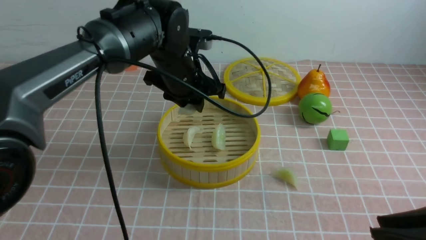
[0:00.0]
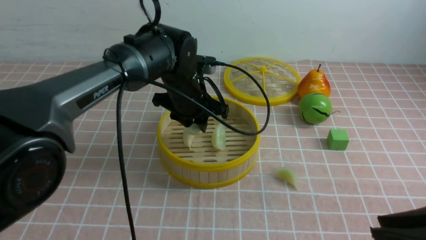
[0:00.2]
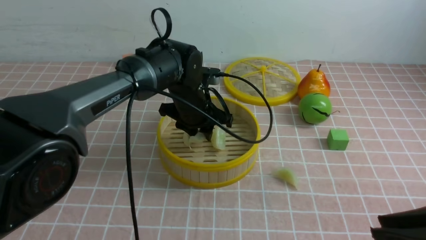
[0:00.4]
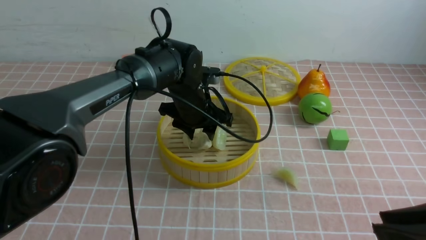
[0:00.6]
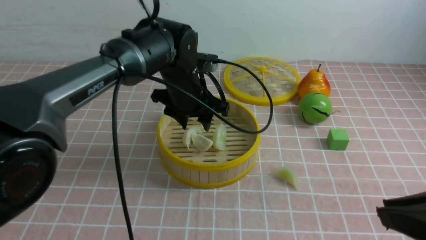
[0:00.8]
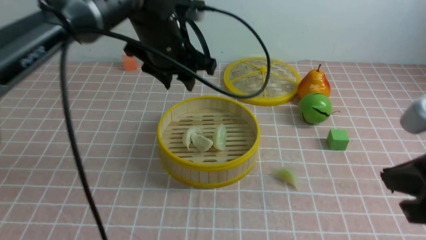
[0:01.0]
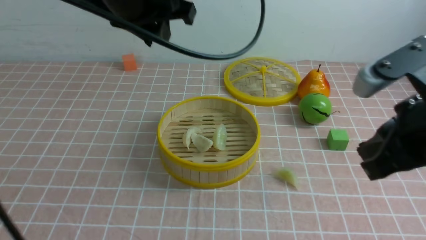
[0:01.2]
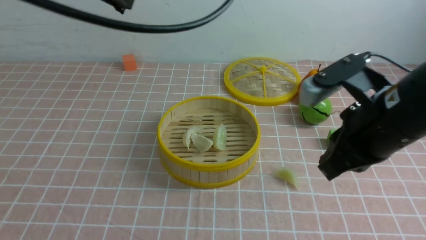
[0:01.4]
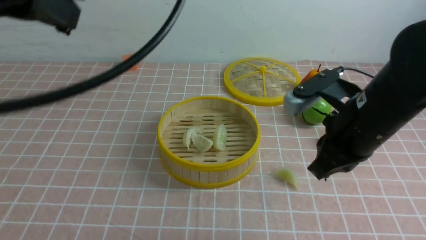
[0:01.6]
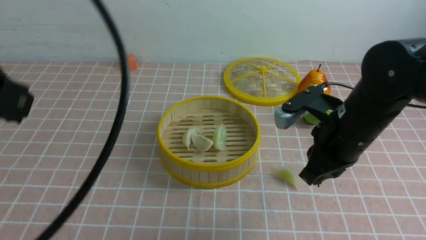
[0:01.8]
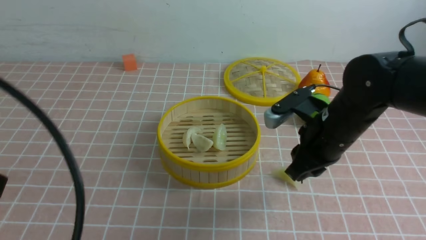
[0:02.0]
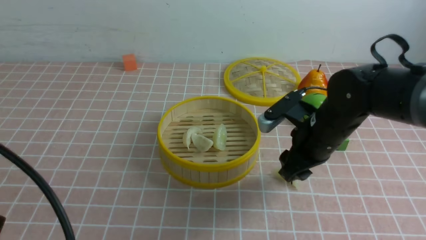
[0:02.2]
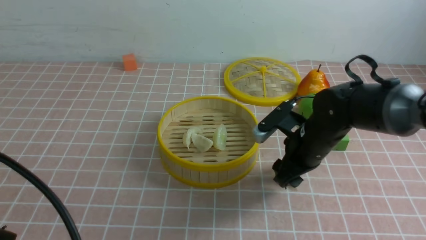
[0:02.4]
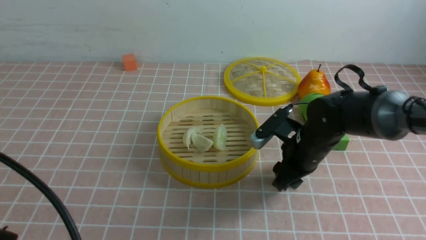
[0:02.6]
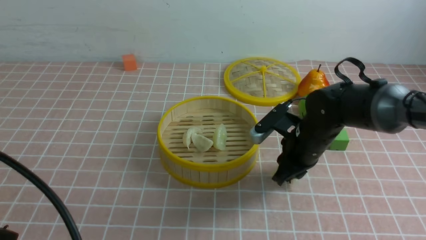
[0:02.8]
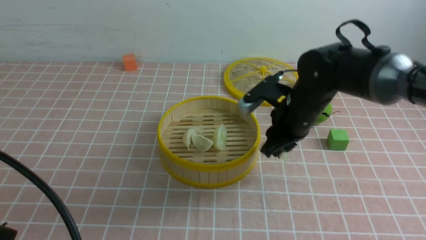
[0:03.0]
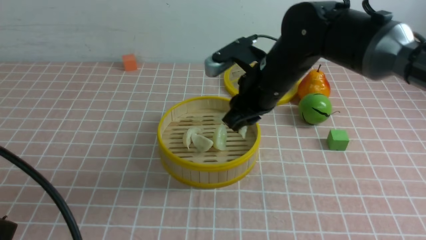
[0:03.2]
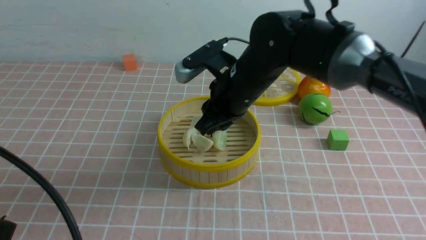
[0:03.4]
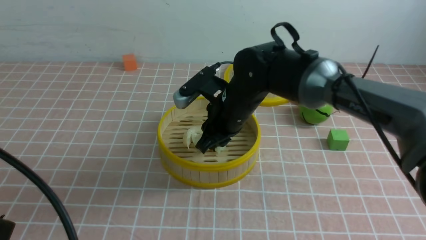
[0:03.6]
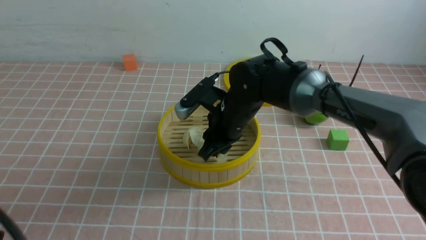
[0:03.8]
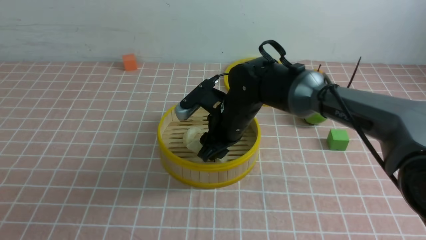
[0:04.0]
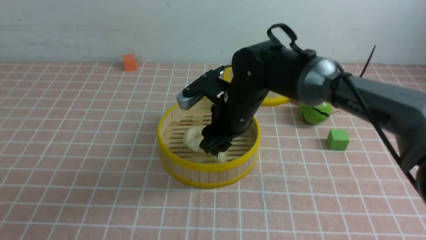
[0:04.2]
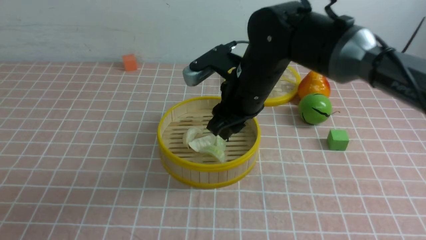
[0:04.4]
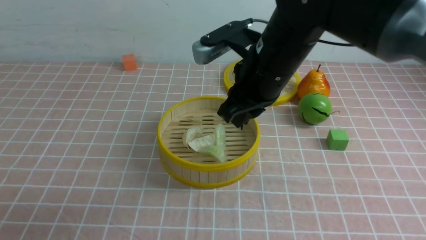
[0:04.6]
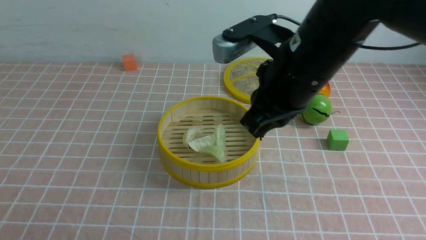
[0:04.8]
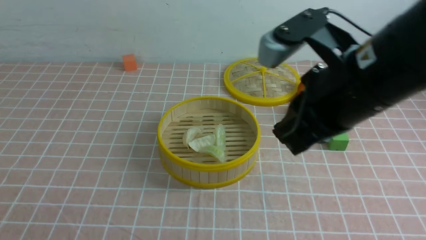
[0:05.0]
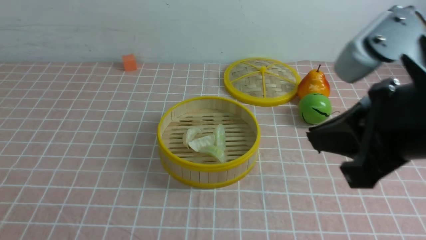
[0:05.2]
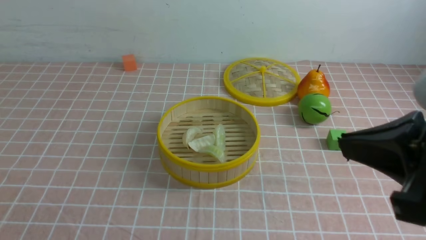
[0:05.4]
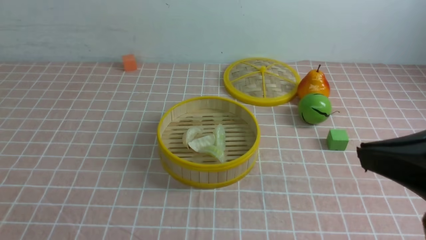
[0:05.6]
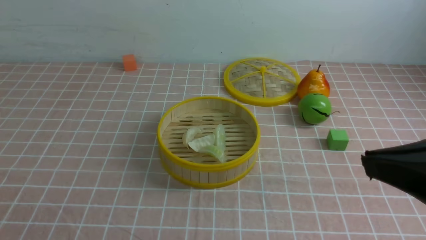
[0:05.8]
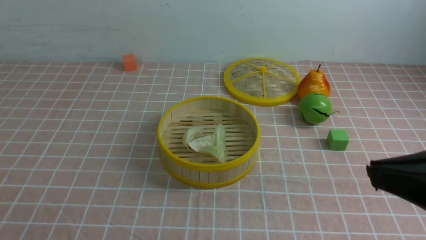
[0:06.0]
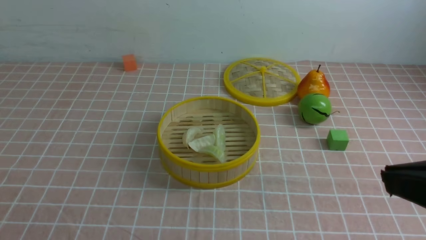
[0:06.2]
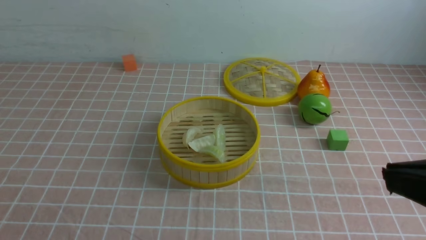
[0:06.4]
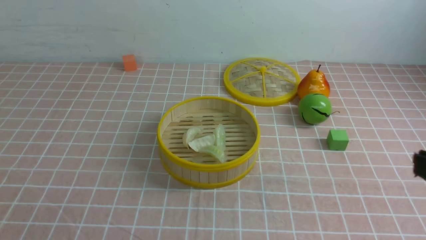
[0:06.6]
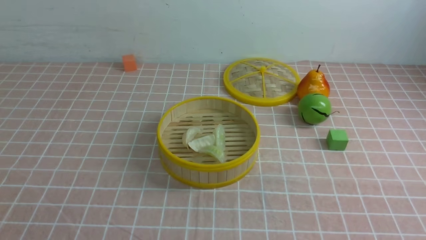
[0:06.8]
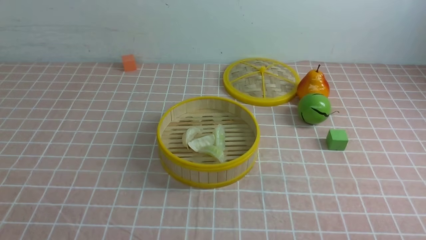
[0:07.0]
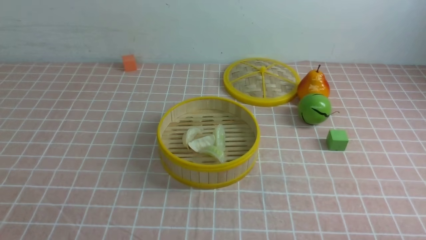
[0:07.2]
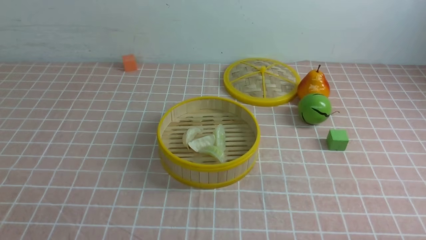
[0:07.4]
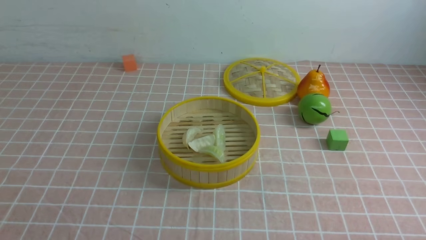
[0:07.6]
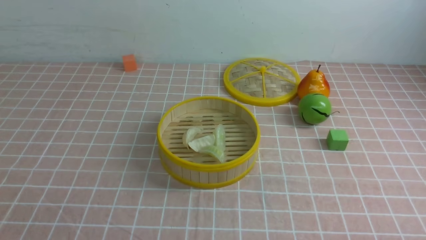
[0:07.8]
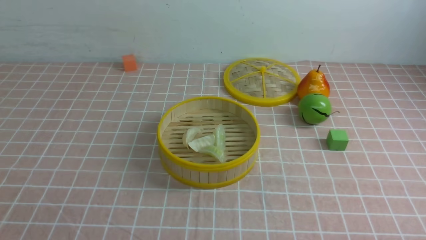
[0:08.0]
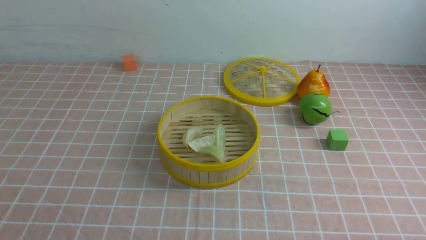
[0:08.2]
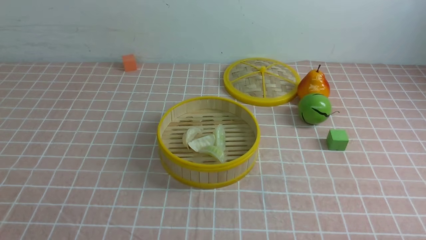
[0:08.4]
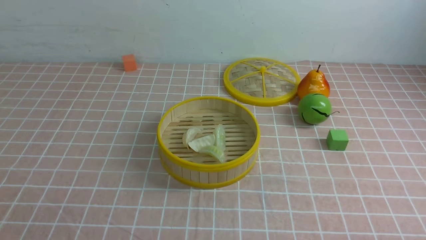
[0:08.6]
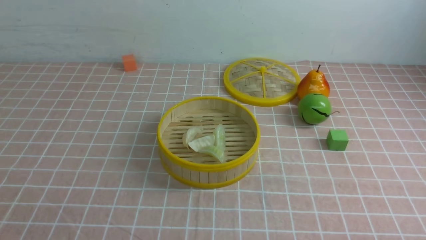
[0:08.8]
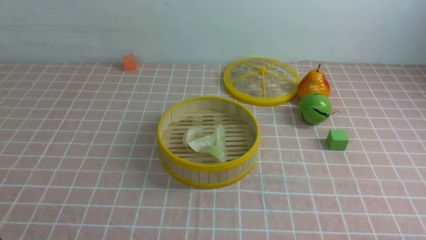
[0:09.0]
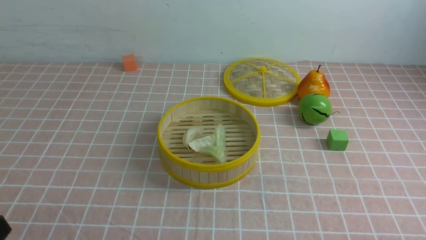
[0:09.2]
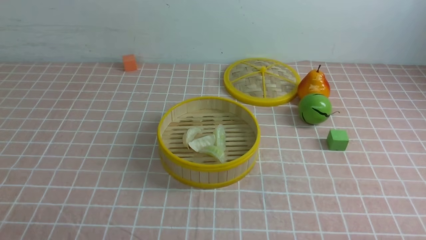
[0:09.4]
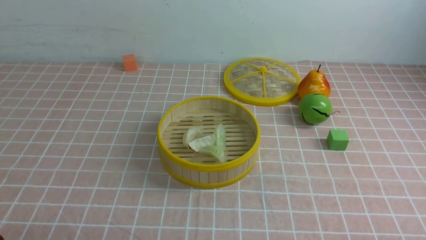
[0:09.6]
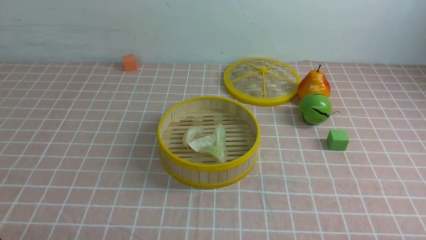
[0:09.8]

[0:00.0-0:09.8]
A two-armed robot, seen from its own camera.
Task of the whole recording: put the dumplings into the steamer on the table with the pink tablecloth.
Step, 0:01.0 to 0:02.8: use the right arm to grab a dumpling.
Step, 0:03.0 to 0:04.6: use the right arm to put the dumpling into the steamer.
0:00.0 to 0:01.4: The left gripper heads upward, backward and to the left, covering approximately 25 cm, while the right gripper goes approximately 15 cm forward, and closes.
0:01.4 to 0:02.8: The right gripper shifts roughly 20 cm downward and forward, and opens; the left gripper moves backward, downward and to the left, approximately 25 cm.
0:02.8 to 0:04.2: The left gripper heads backward, covering roughly 5 cm; the right gripper heads to the left and upward, covering some 15 cm.
0:04.2 to 0:05.6: The right gripper shifts about 35 cm backward, to the right and upward, and closes up.
0:05.6 to 0:07.0: The right gripper heads downward, to the right and backward, covering about 20 cm.

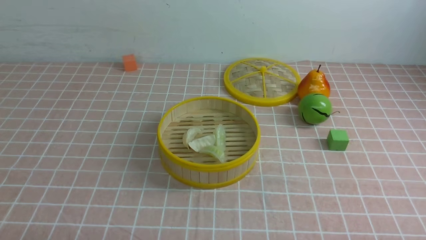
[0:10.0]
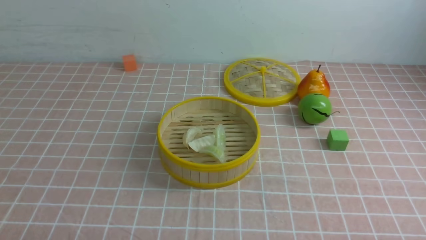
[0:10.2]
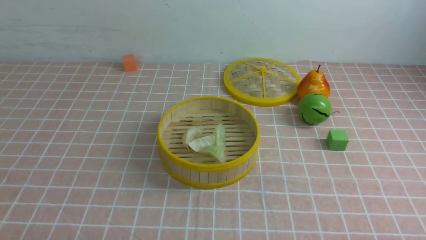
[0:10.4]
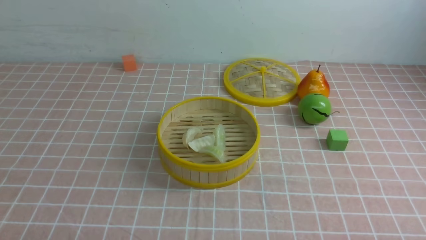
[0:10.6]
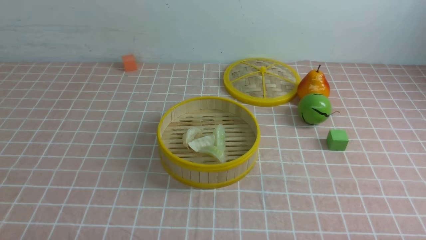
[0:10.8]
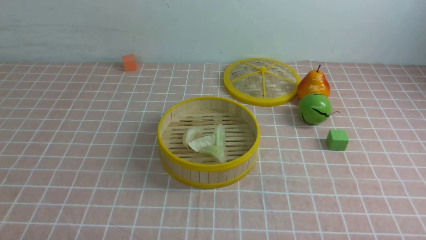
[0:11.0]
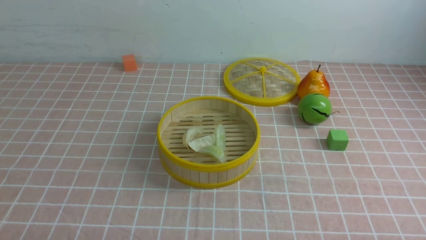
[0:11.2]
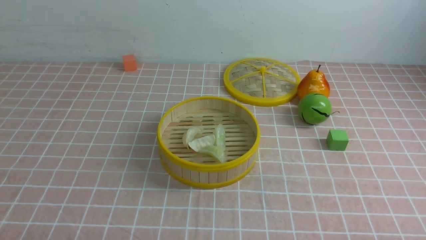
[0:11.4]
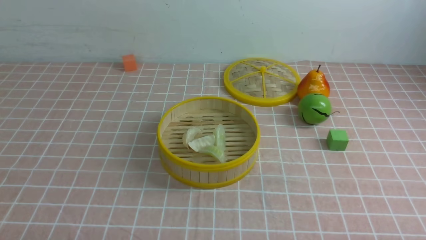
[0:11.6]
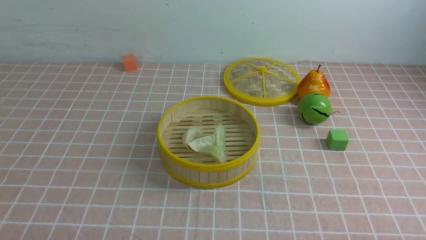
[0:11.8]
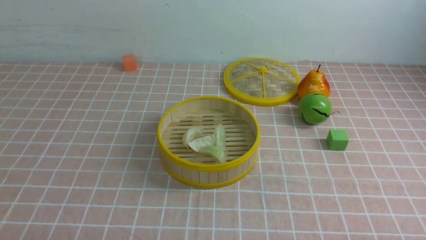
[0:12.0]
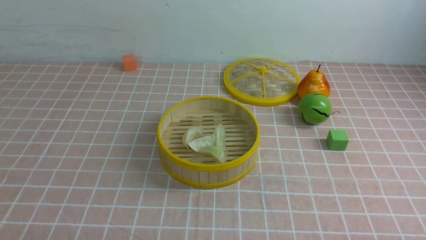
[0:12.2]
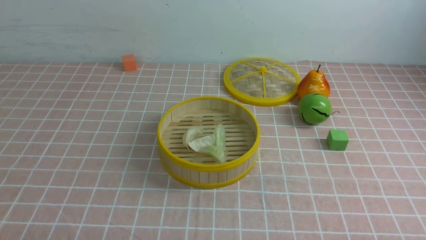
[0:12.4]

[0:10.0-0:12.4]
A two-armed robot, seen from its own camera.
Task of the whole recording: put the dumplings into the steamer on the table with the pink tablecloth.
0:11.2 to 0:12.4: Both grippers stay put.

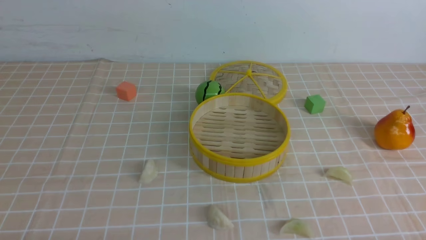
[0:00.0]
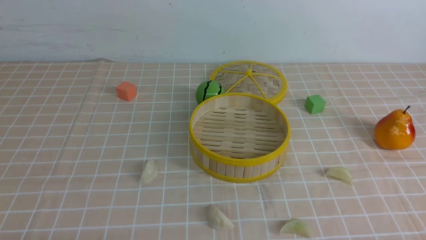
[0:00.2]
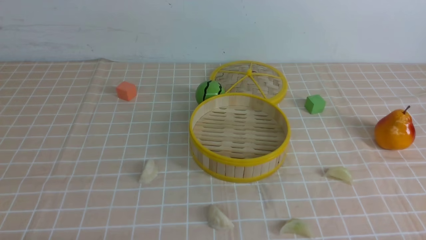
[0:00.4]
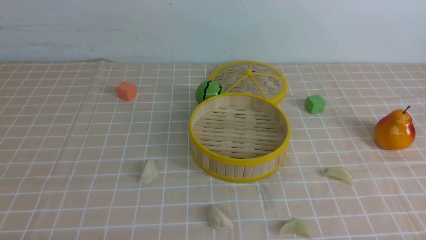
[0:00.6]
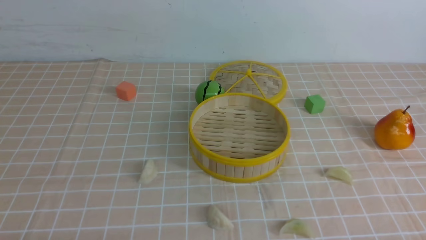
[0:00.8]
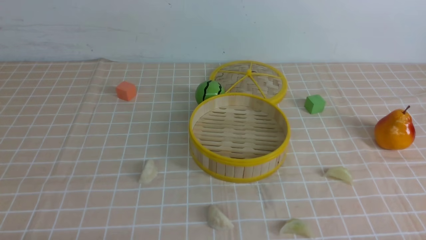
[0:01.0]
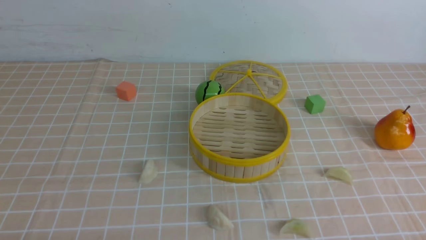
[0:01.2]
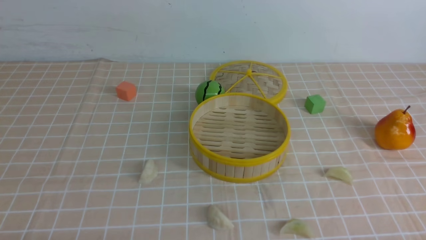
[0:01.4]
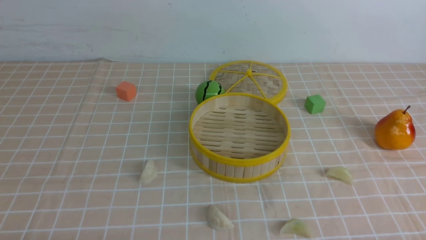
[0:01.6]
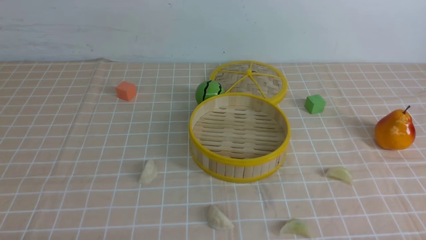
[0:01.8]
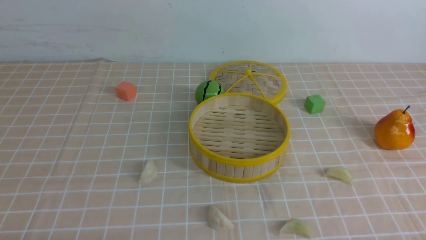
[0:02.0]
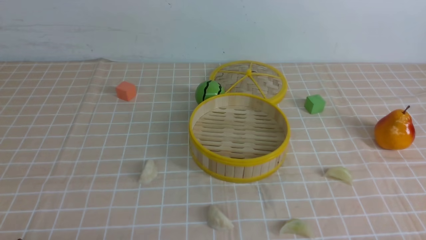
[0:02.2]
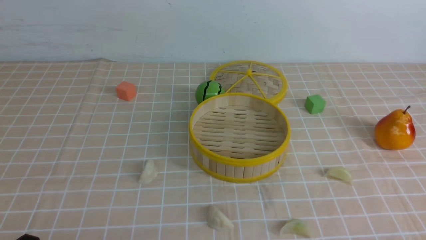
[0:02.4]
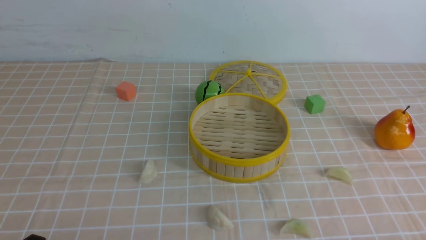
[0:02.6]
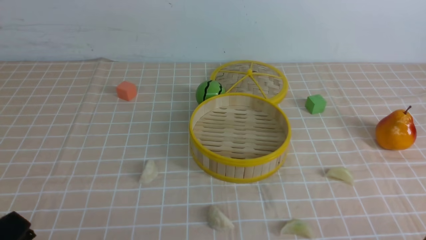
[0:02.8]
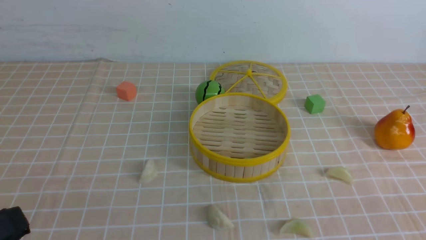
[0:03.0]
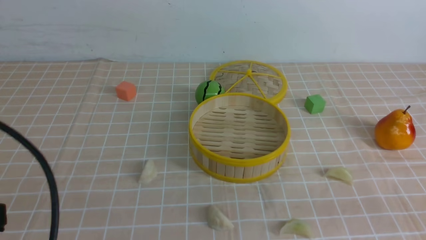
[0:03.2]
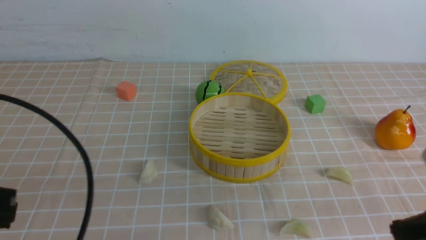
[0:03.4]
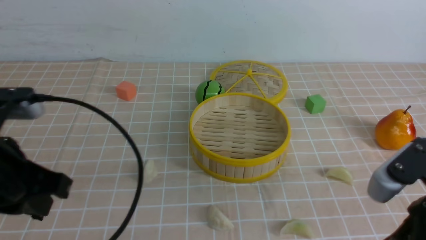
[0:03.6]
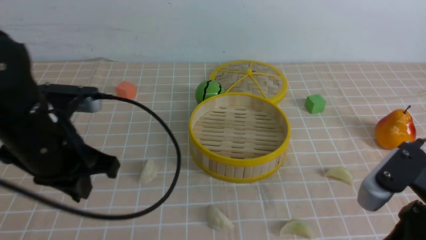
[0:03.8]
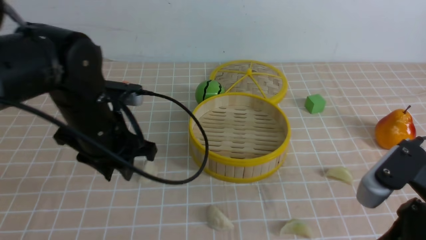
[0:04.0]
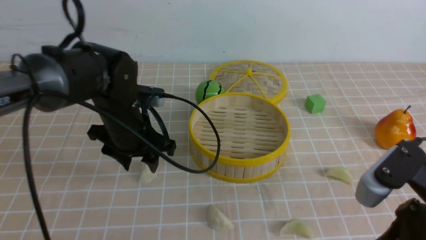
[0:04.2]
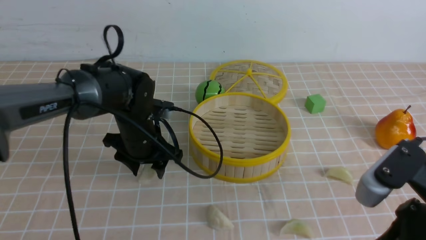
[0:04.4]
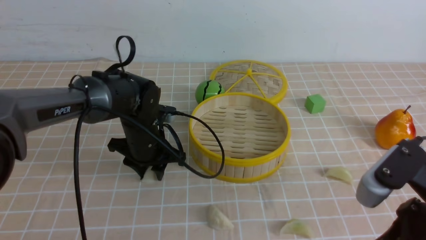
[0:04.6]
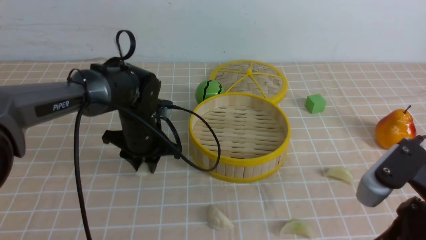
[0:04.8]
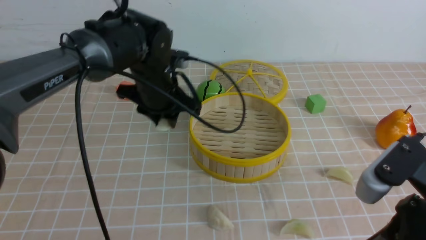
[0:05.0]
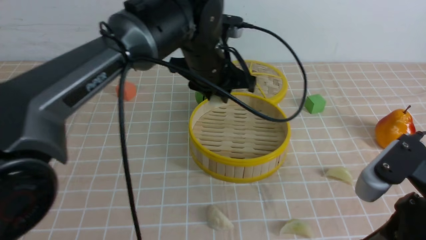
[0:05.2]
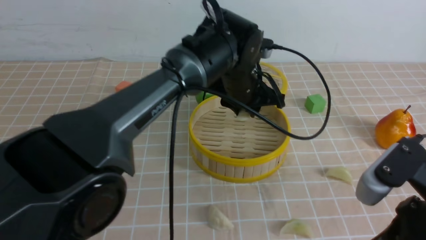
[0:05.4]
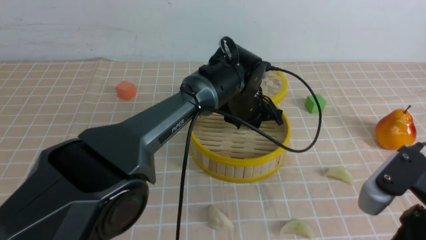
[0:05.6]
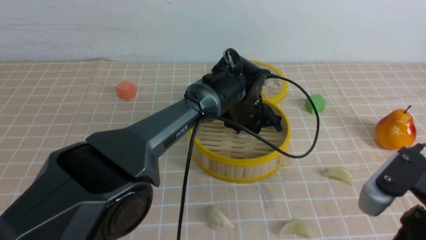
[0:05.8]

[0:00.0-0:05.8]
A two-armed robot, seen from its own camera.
Task of the whole recording: put the dumplings into the steamer on the table with the brown tablecloth.
Step, 0:00.0 to 0:04.6: use the left arm to grab a dumpling.
0:00.0 to 0:01.4: The two grippers keep their place.
0:01.4 to 0:02.8: The left gripper shifts some 10 cm upward.
0:02.8 to 0:04.4: The right gripper travels forward, to the left and upward by approximately 15 cm, while the left gripper shifts about 35 cm forward, and opens up.
0:04.4 to 0:05.8: The left gripper heads to the right, covering roughly 20 cm.
